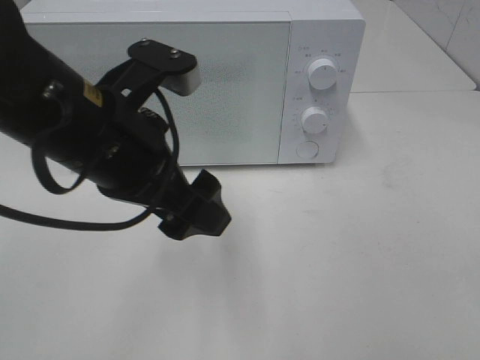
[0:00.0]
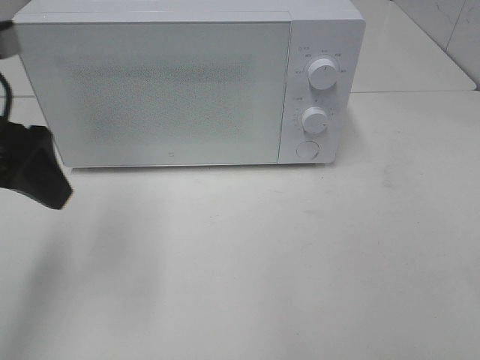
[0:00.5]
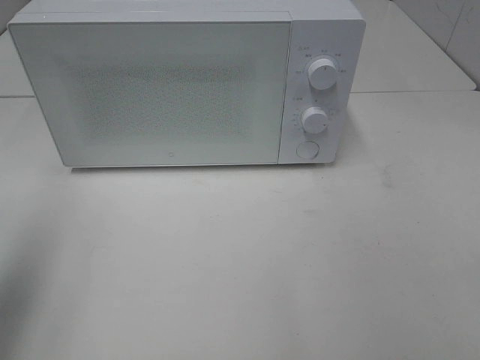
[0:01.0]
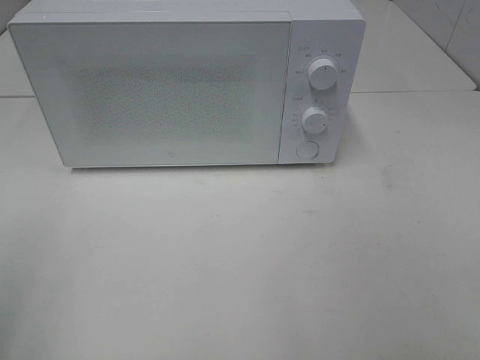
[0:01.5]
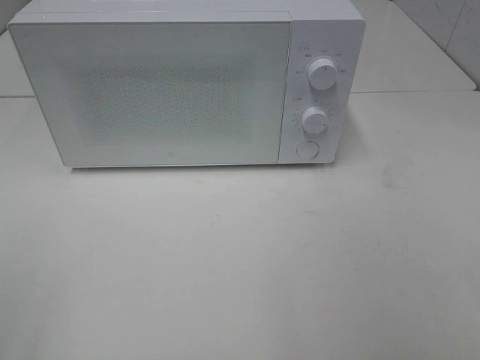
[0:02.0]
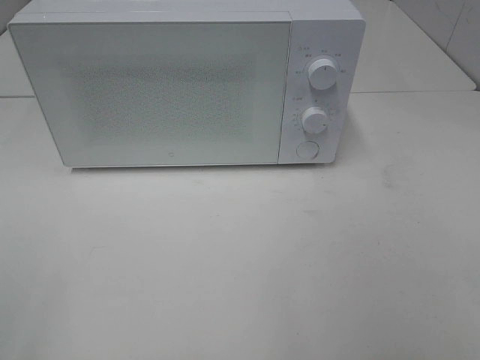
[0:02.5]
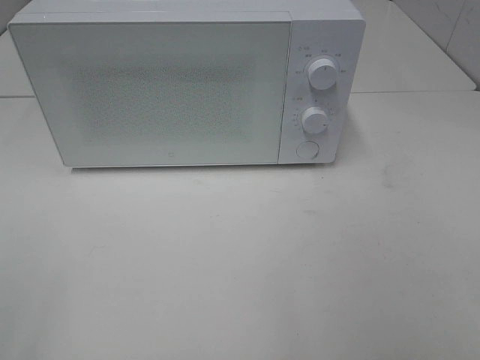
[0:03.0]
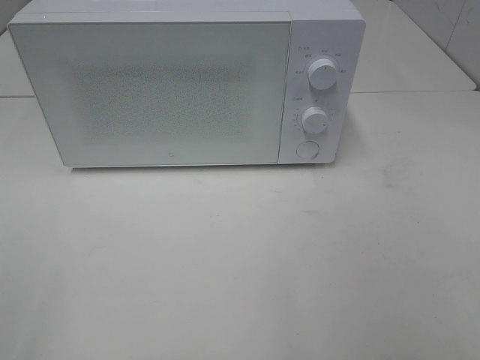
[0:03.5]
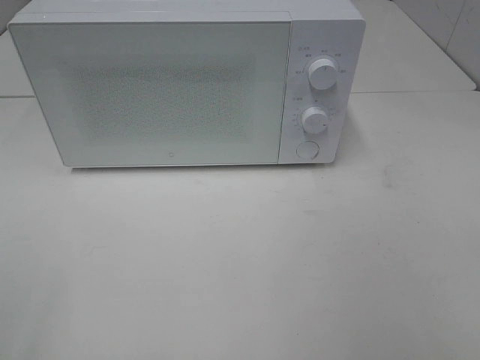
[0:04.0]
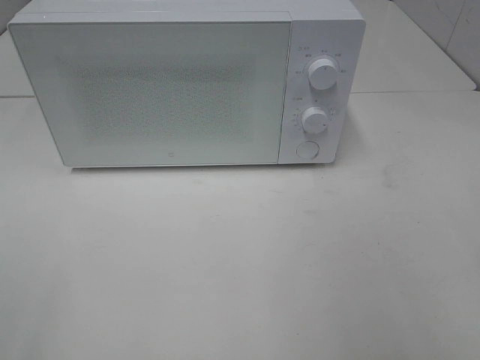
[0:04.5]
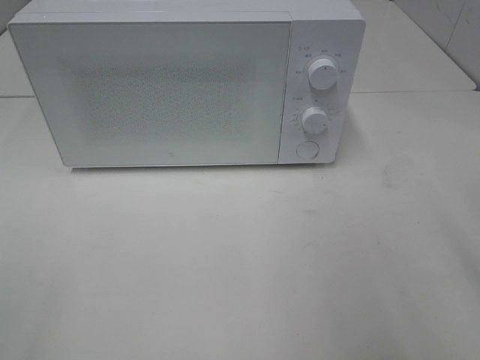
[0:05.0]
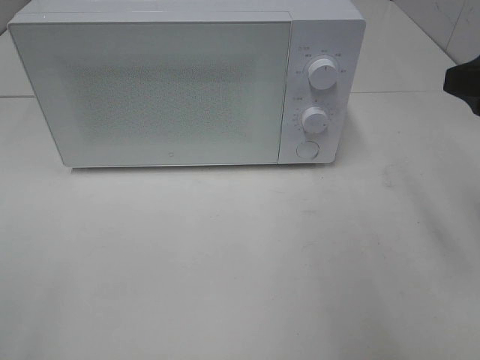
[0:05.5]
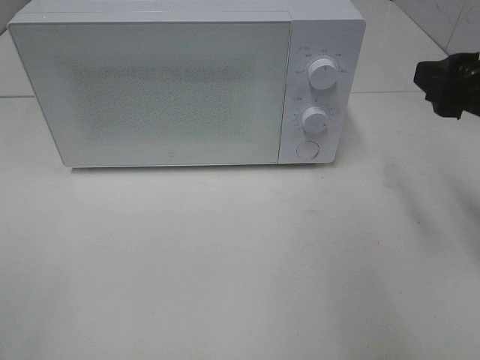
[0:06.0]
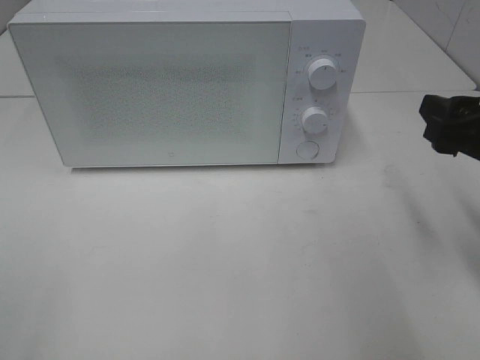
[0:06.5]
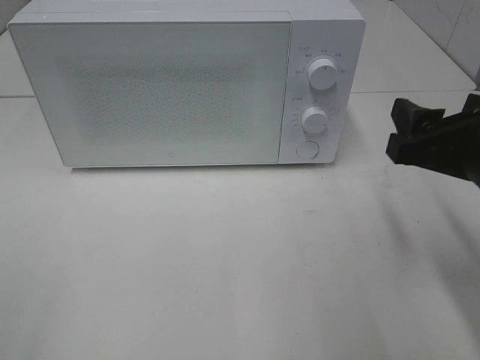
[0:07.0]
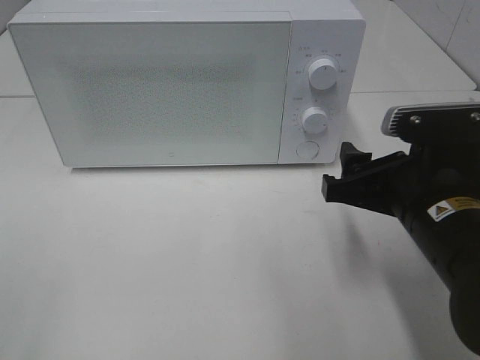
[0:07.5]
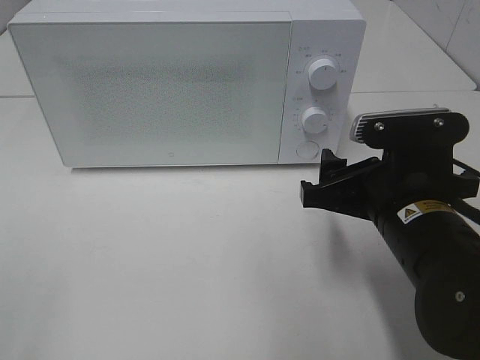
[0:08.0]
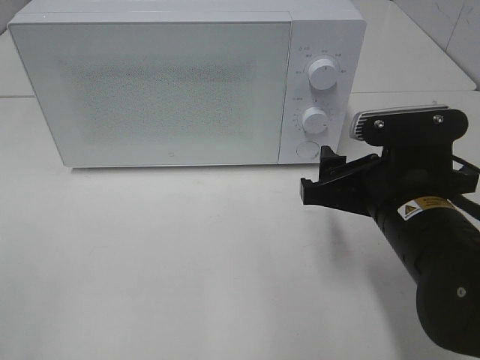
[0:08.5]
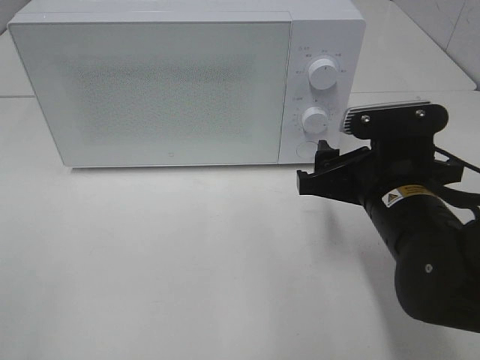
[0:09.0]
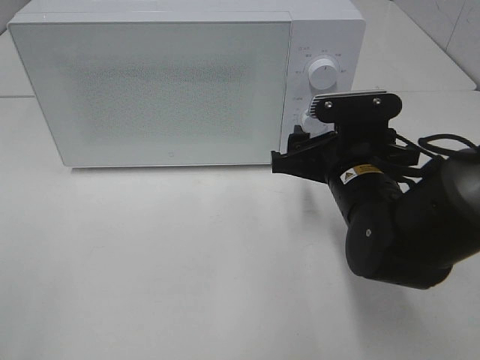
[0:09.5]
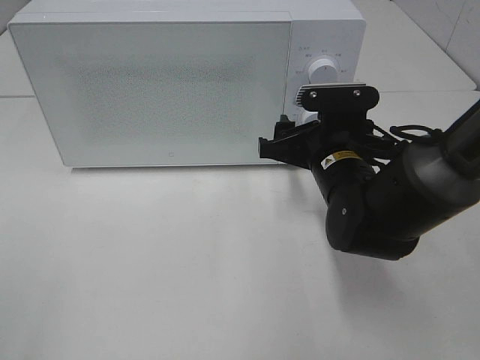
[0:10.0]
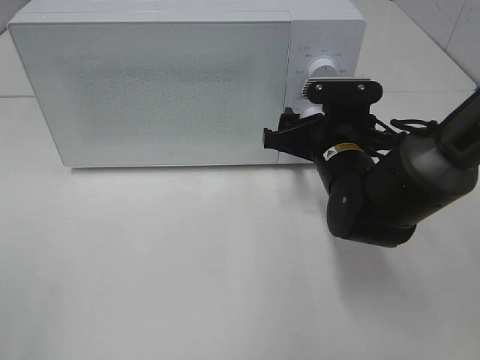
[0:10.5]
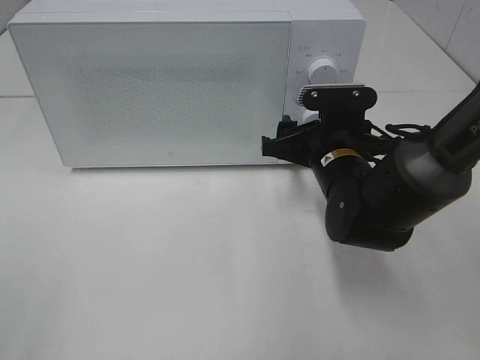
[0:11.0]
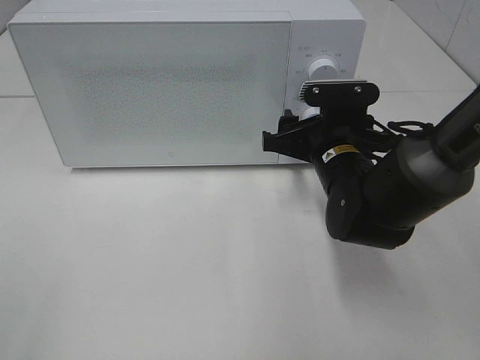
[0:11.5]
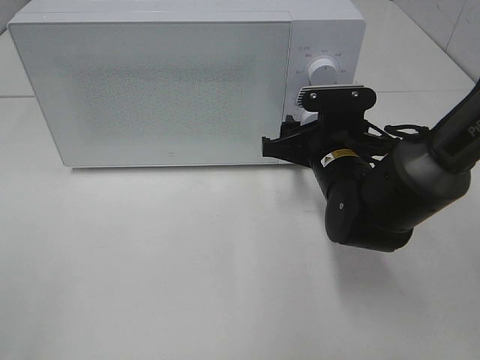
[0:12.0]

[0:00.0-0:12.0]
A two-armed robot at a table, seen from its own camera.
Task of the whole recording: Heat the burger.
0:00.0 to 0:02.0: The left gripper heads to the left and backward, covering roughly 30 cm.
0:04.0 to 0:06.0: The right gripper goes about 20 cm forward.
0:06.0 to 0:08.0: The right gripper shifts approximately 15 cm to the left and downward.
0:08.0 to 0:10.0: The right gripper travels forward by some 10 cm.
0:10.0 to 0:12.0: The grippers stay close to where they were, moving slightly.

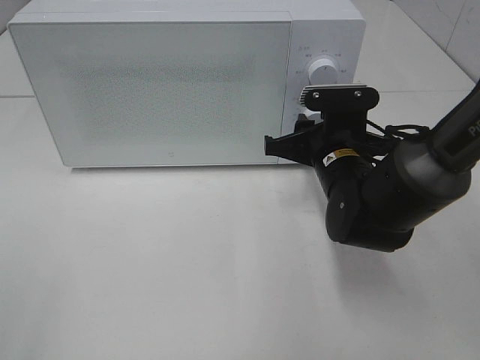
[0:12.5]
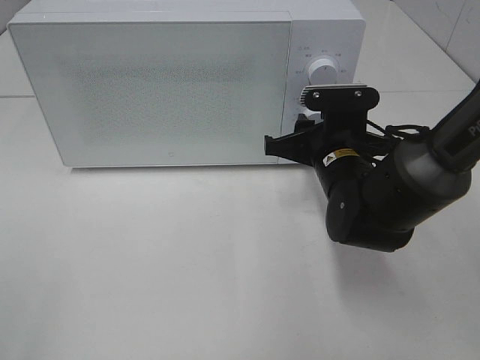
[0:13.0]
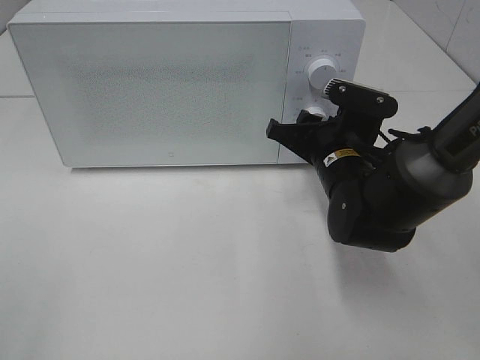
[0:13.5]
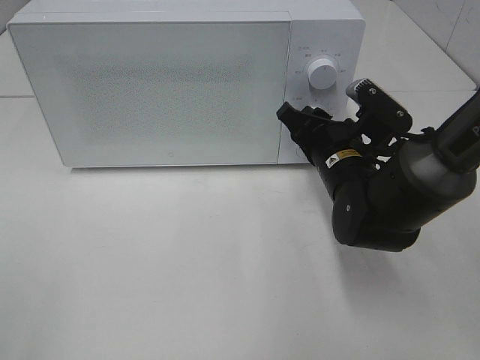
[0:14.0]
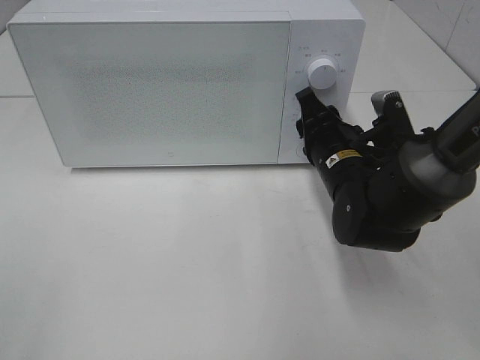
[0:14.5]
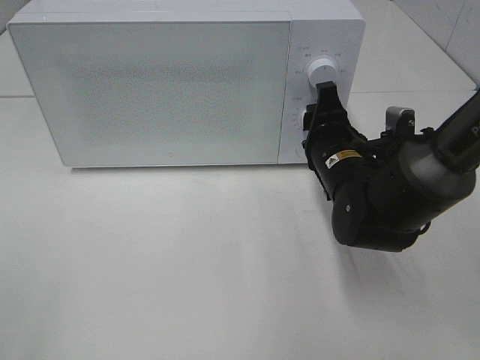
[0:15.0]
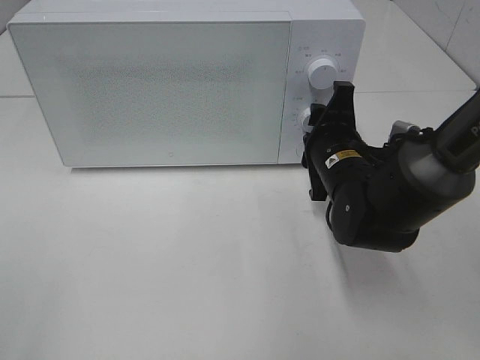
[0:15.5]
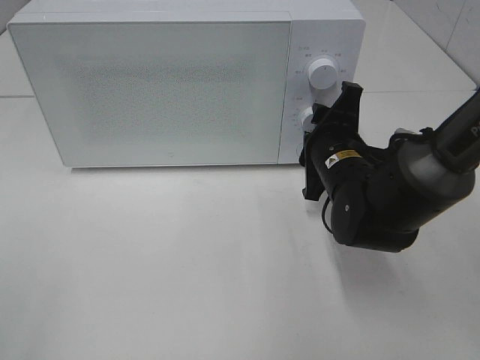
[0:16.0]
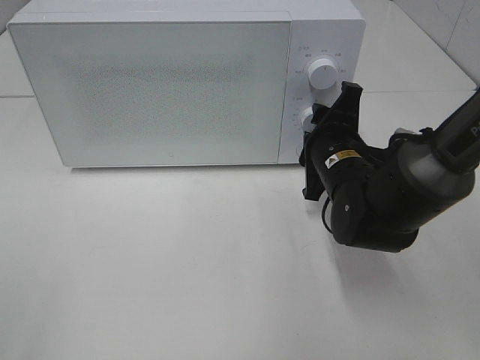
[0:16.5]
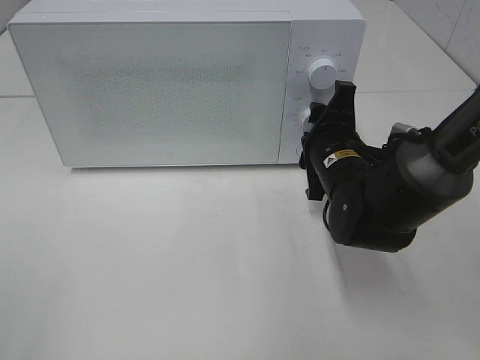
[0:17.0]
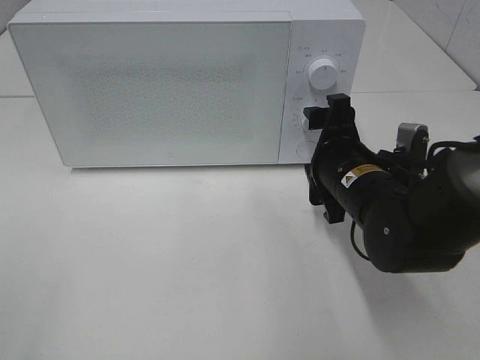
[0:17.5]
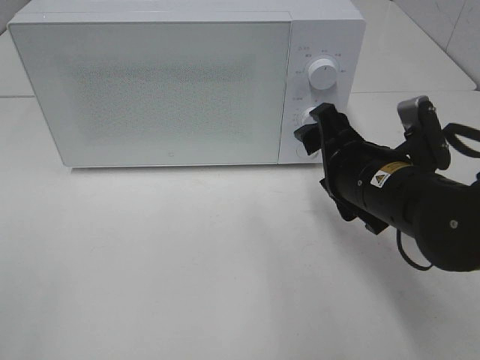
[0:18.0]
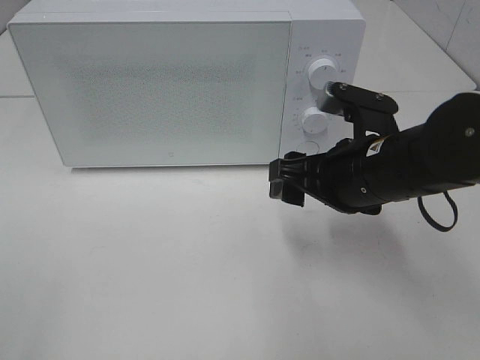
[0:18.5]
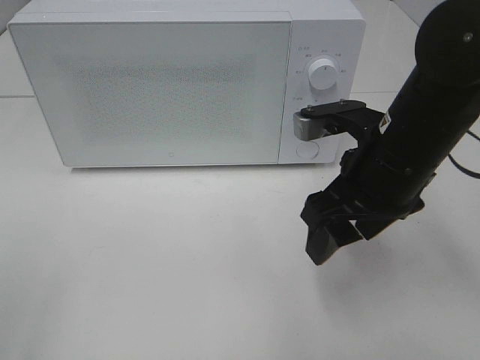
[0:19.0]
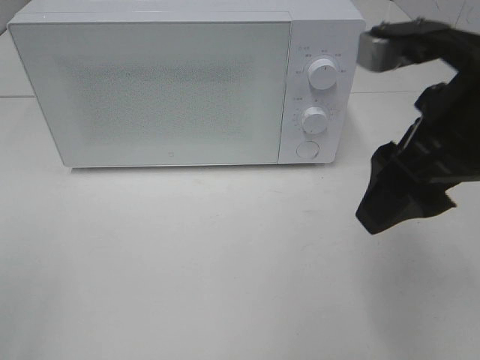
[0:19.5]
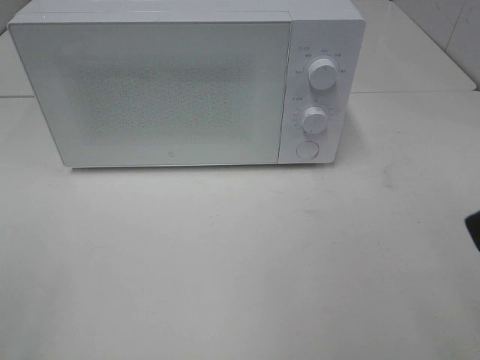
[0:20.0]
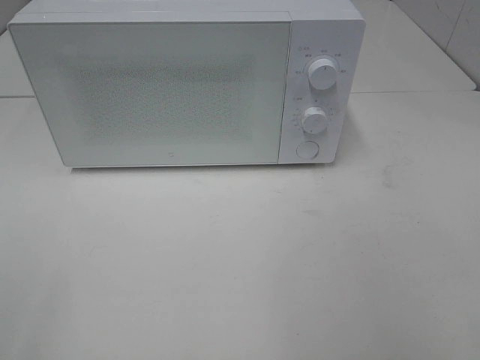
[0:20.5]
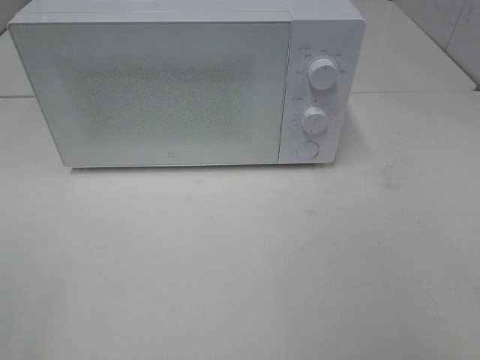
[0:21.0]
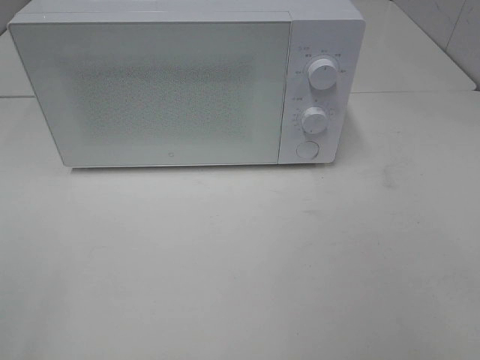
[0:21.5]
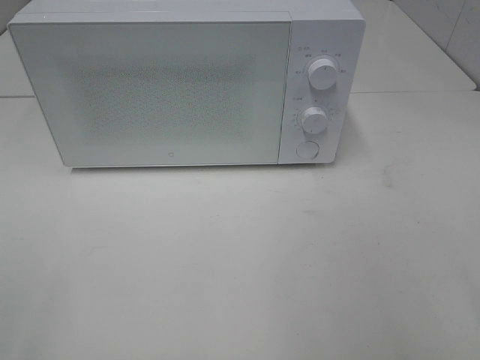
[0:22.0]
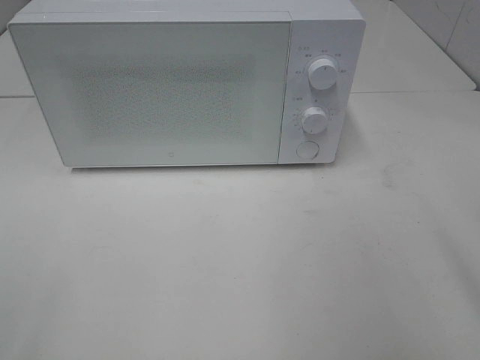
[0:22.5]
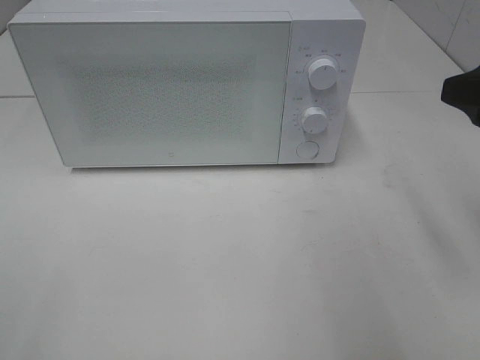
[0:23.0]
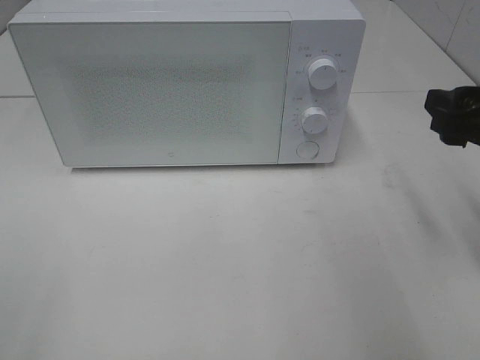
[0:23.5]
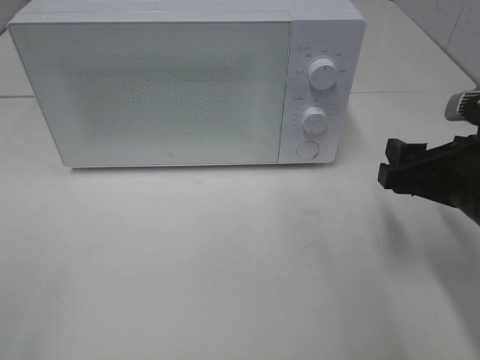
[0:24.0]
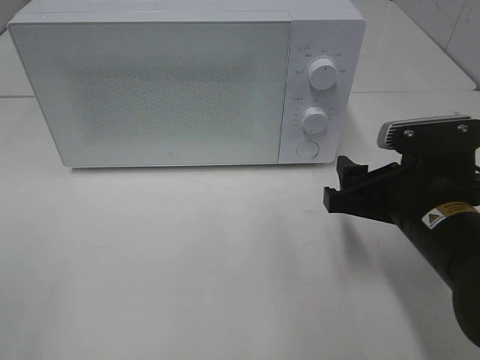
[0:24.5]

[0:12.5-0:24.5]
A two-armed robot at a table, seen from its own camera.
Task of the whole recording: Heat the burger.
Step, 0:12.5 to 0:17.0: Right hand: twist timer button.
0:16.5 to 0:18.5: The right gripper shifts about 10 cm backward and upward.
0:18.5 to 0:20.5: The right gripper travels backward, upward and to the right by about 30 cm.
0:22.5 to 0:24.5: The right gripper heads downward, forward and to the left, covering approximately 20 cm.

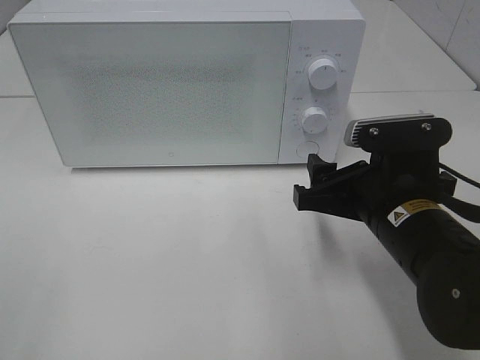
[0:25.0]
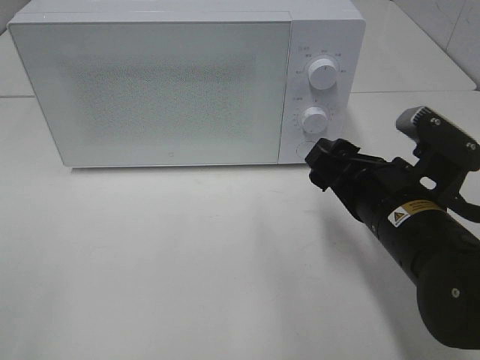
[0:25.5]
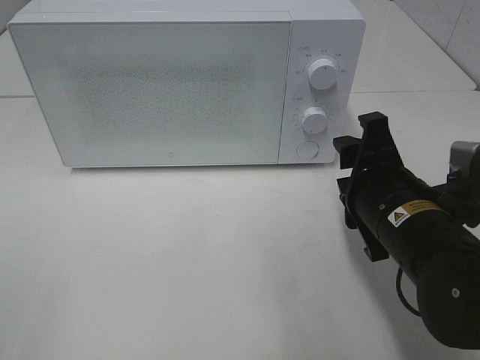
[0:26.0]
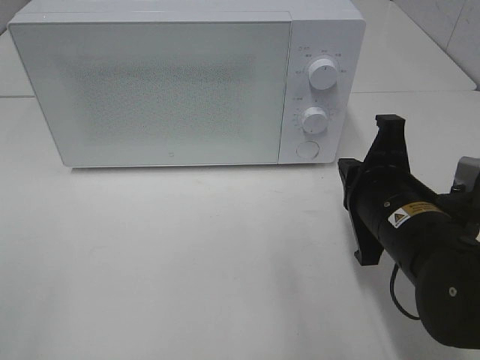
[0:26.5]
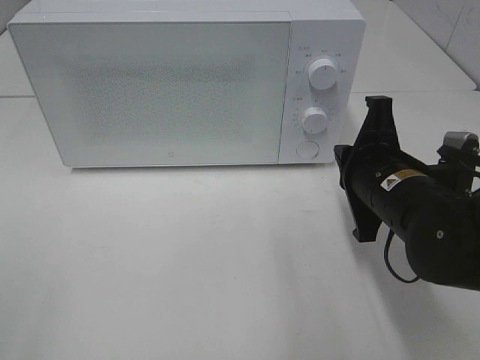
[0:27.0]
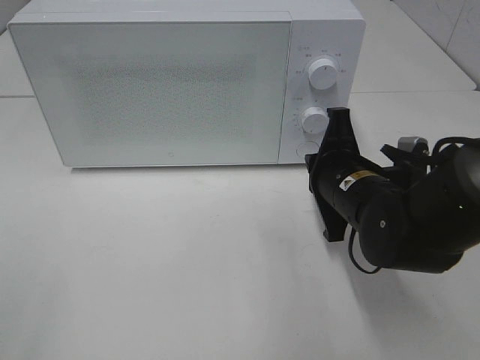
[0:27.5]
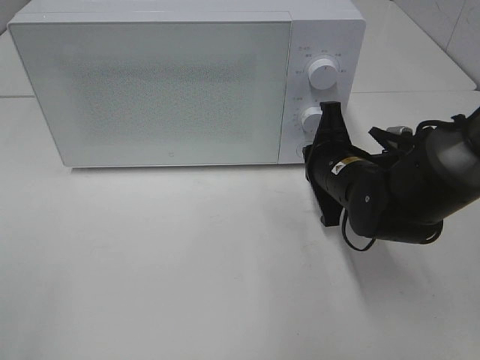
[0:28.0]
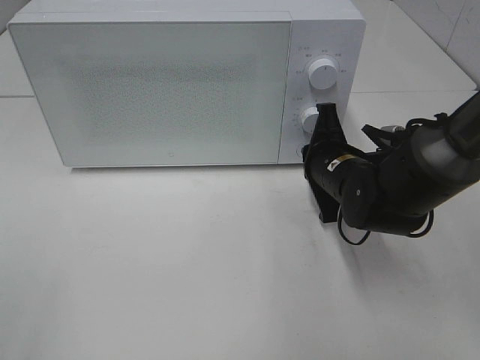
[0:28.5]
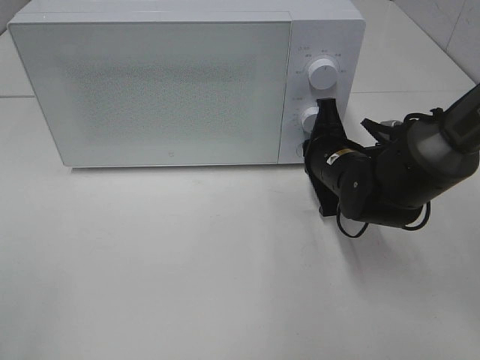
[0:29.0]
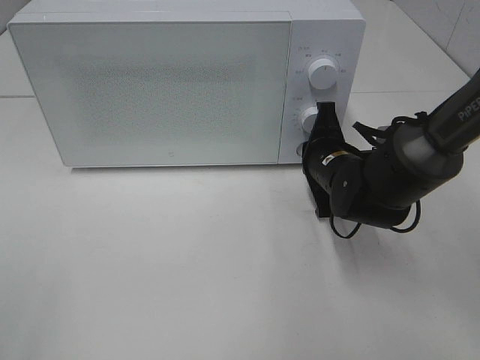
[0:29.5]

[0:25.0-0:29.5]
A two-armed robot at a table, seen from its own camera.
Task of the whole recording: Heat the burger.
0:25.0 to 0:27.0: The right gripper closes up.
0:27.0 to 0:29.5: The right gripper is displaced forward and downward by some 10 cm.
